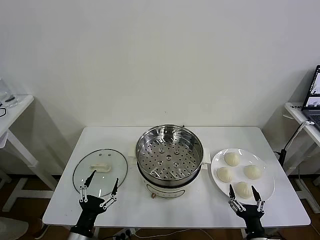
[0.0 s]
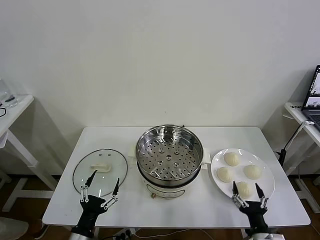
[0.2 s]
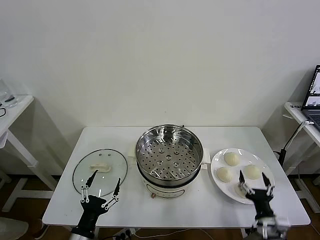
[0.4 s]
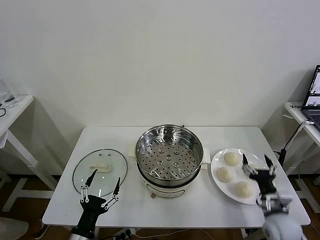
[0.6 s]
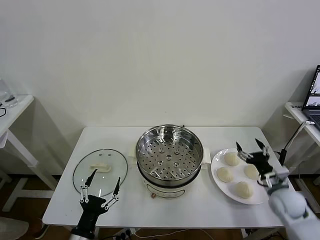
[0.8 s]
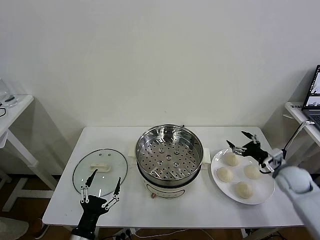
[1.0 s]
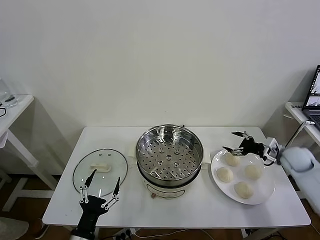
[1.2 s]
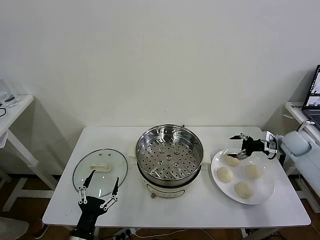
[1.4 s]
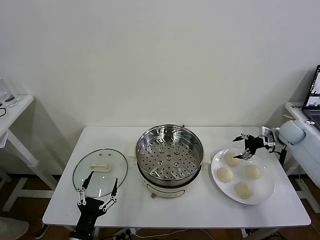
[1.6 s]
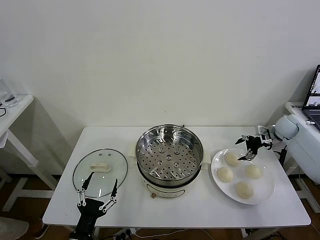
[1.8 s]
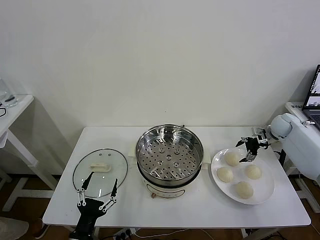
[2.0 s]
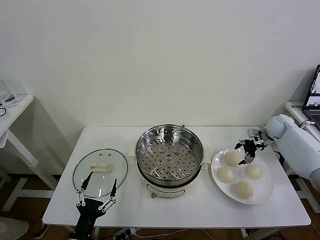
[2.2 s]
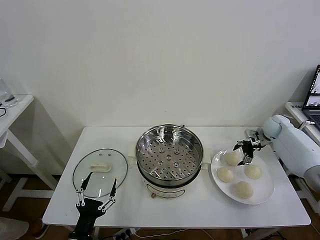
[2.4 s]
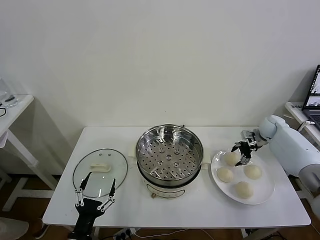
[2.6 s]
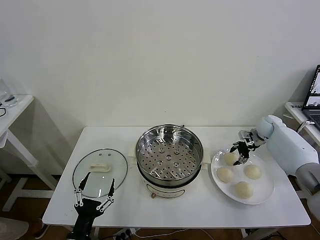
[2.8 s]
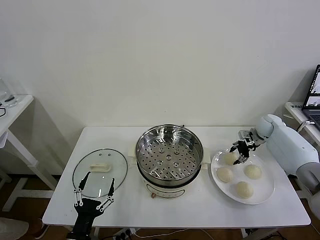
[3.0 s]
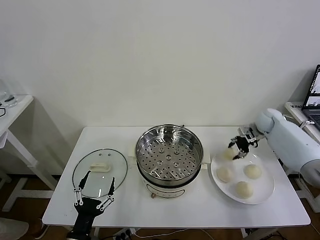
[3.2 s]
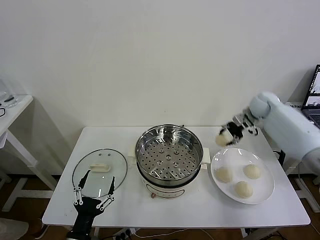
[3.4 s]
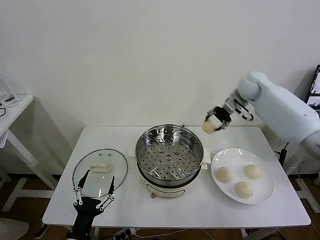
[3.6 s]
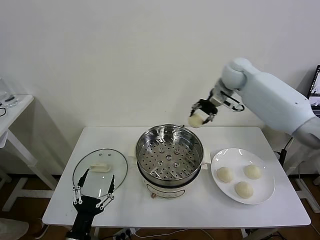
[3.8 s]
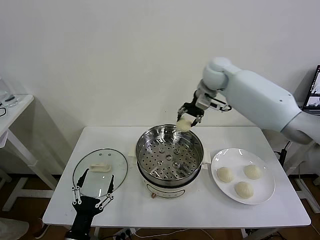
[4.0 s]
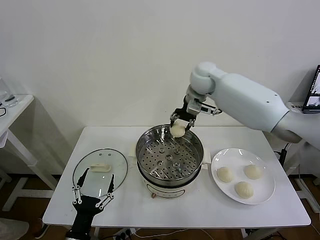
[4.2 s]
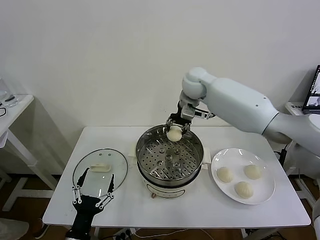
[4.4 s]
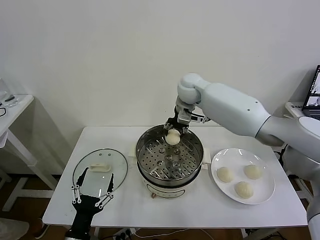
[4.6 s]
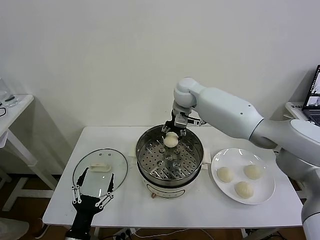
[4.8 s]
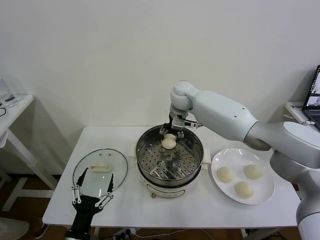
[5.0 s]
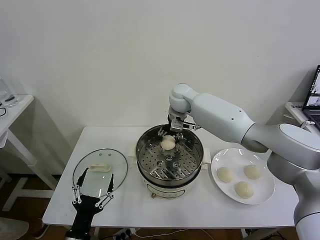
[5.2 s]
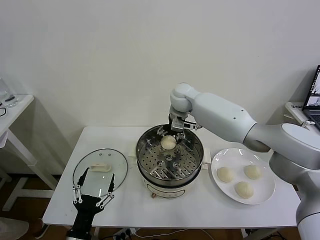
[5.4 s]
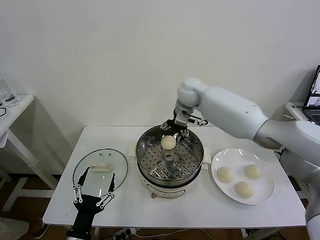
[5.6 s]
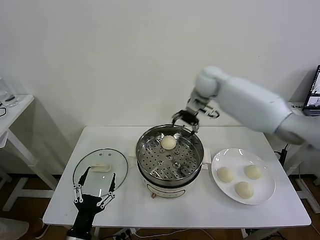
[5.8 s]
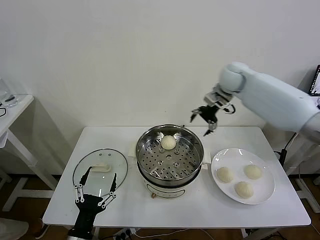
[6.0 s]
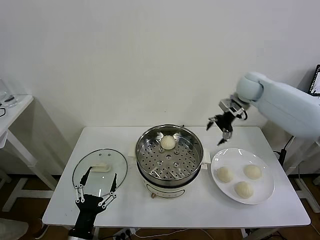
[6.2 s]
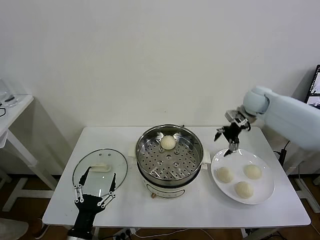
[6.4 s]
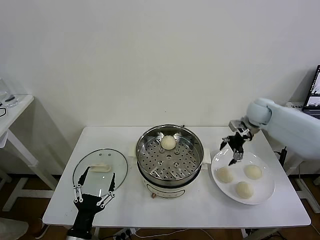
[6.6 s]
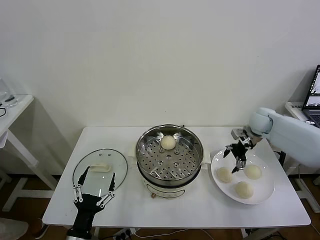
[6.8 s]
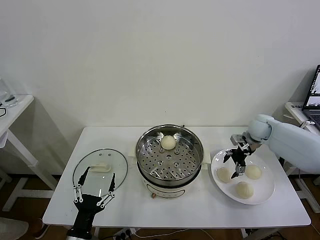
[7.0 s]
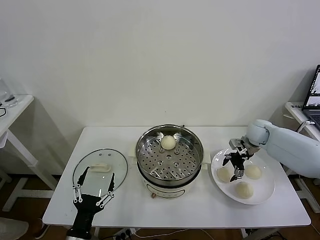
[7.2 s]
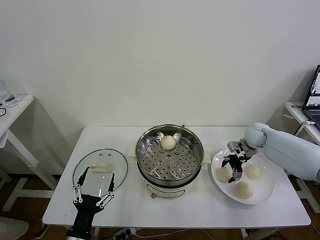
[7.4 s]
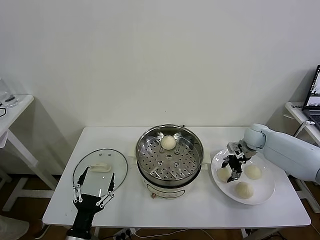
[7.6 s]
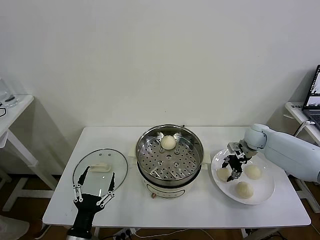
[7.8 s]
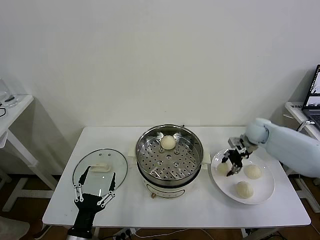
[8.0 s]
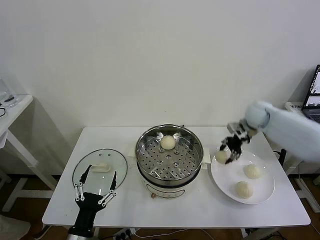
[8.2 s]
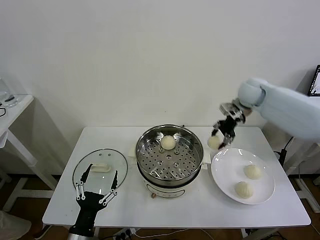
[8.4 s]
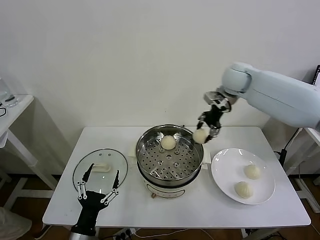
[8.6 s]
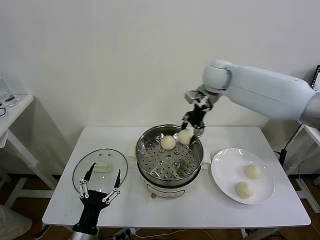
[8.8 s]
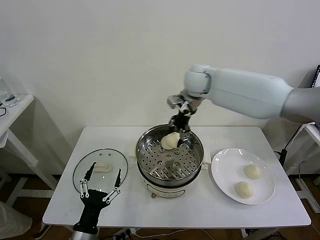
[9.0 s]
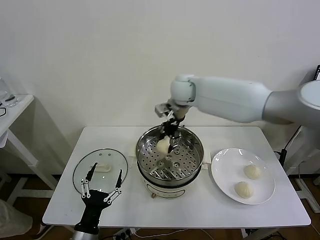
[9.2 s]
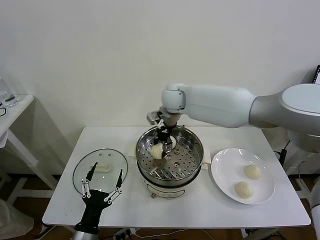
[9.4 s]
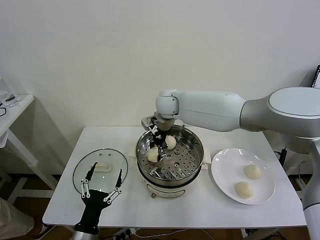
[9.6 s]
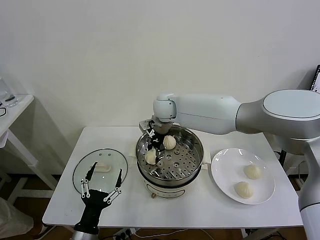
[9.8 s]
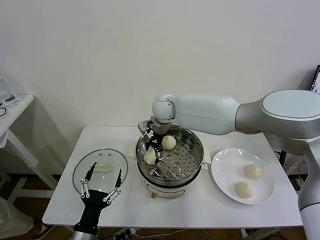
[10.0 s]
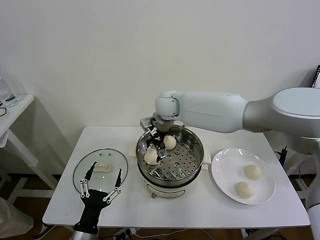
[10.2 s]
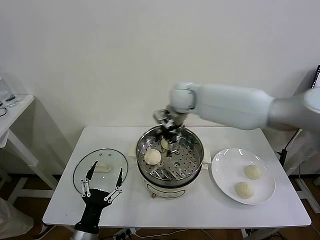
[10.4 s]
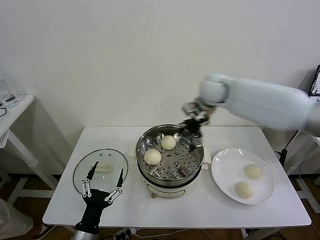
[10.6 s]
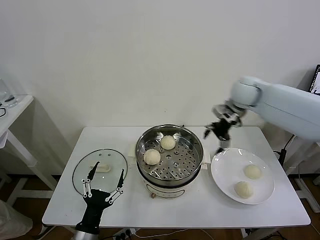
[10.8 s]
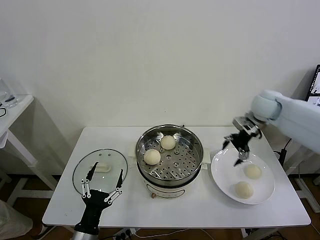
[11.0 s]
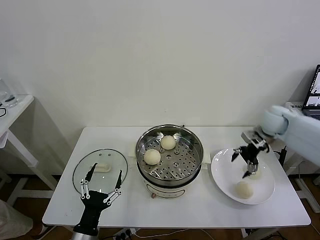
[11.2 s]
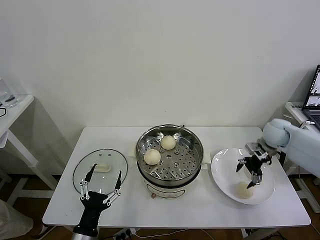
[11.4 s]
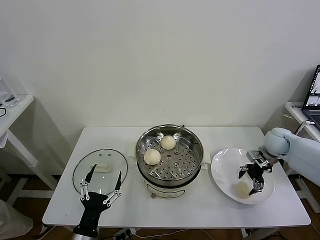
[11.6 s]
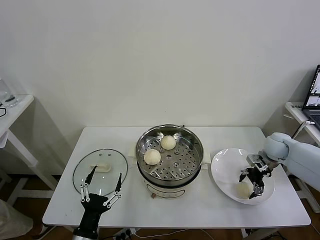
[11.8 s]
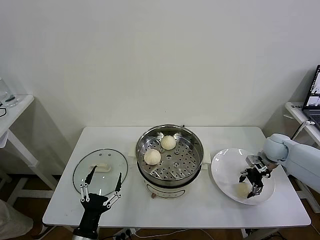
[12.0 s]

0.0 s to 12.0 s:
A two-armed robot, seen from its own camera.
Task of the whole recording: take steamed baozi put them in steamer then cover it.
Step, 0.0 to 2.8 s: Grasp the baozi in the plate with right gripper.
Step, 3.0 to 5.2 s: Place the baozi on the steamer with right gripper.
Step, 5.6 to 7.6 s: Grasp the baozi in the plate with right gripper.
Step, 7.8 to 10.0 s: Place the baozi on the steamer with right gripper.
Step, 10.2 to 12.0 s: Grasp the baozi in the plate with right gripper.
1.6 to 3.0 s: The right gripper is displaced forward and to the left by some 5 cm, and closes its fingers.
3.0 to 4.4 s: The right gripper is displaced to the left and upward by approximately 40 cm.
4.4 to 6.0 s: The right gripper travels to the right by roughly 15 cm, and opens up.
6.0 to 7.6 s: The right gripper heads downward and to the right, covering roughly 25 cm, and closes up.
7.6 to 9.0 s: The right gripper shifts roughly 35 cm to the left and upward.
9.0 to 10.4 s: The right gripper goes to the left and returns, roughly 10 cm each way, and opens its fingers.
10.4 to 12.0 s: The right gripper goes about 40 cm to the right and downward, and closes.

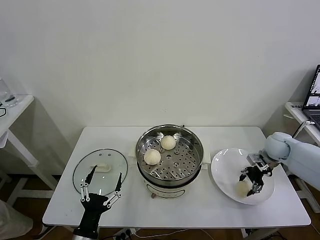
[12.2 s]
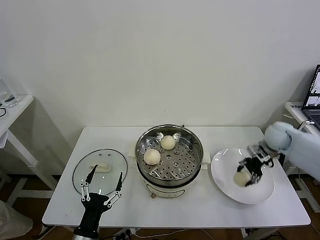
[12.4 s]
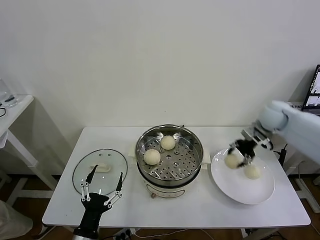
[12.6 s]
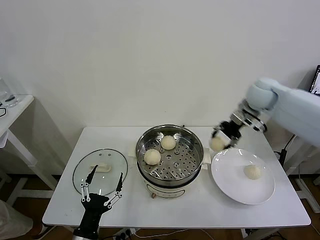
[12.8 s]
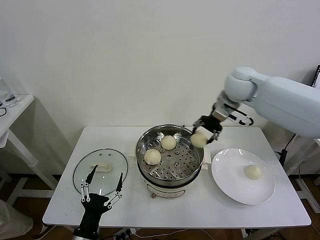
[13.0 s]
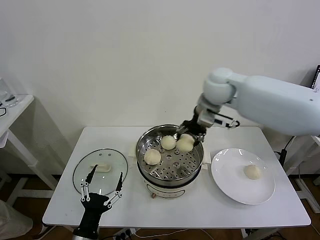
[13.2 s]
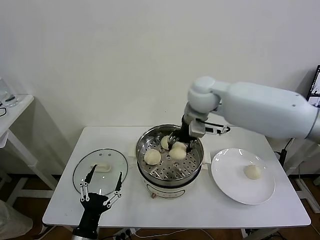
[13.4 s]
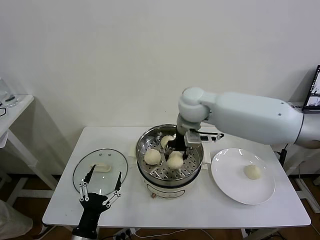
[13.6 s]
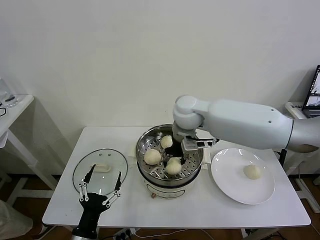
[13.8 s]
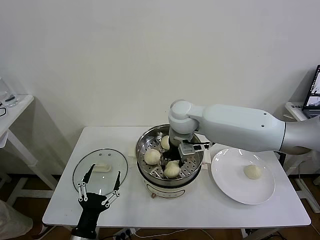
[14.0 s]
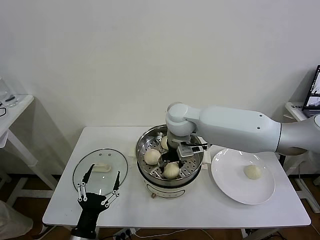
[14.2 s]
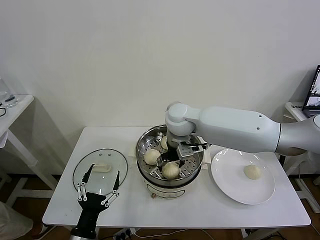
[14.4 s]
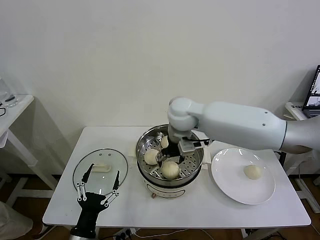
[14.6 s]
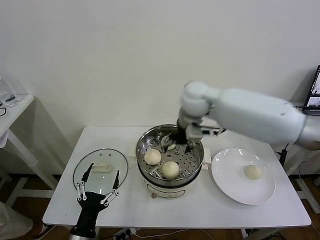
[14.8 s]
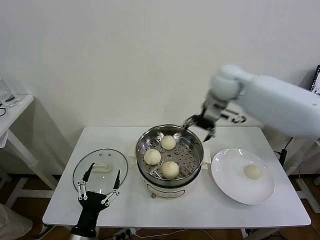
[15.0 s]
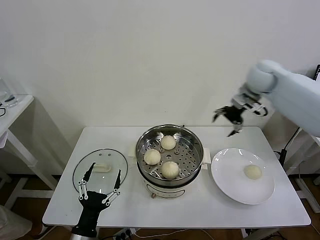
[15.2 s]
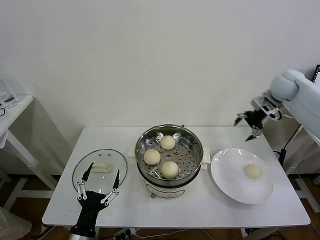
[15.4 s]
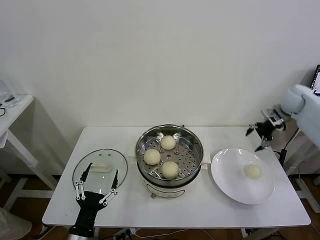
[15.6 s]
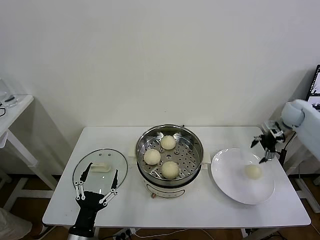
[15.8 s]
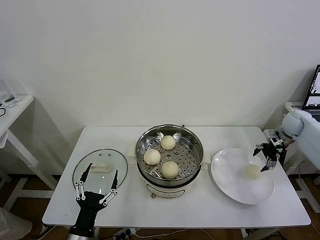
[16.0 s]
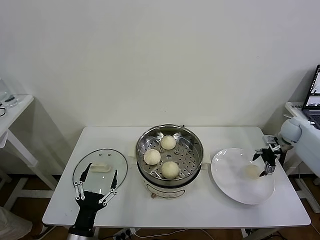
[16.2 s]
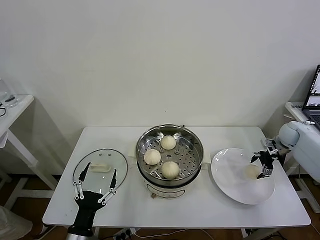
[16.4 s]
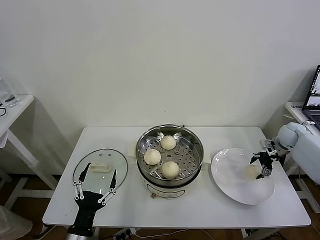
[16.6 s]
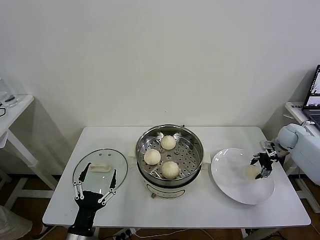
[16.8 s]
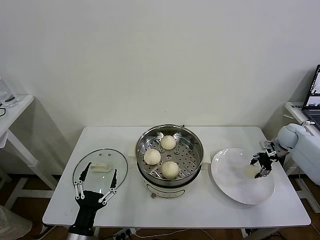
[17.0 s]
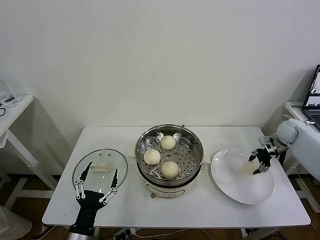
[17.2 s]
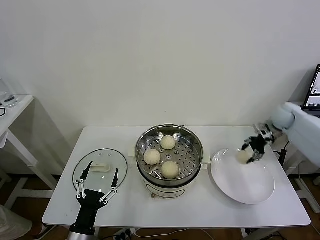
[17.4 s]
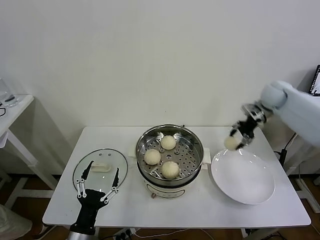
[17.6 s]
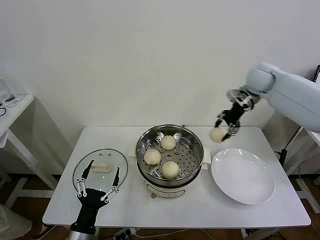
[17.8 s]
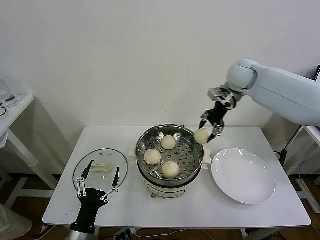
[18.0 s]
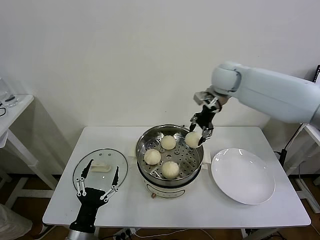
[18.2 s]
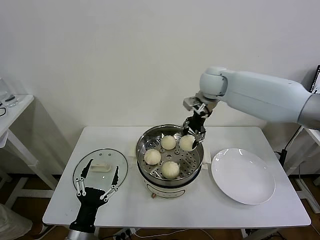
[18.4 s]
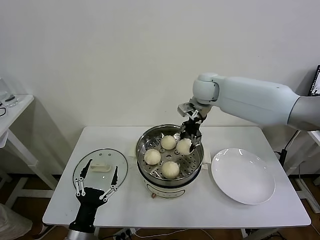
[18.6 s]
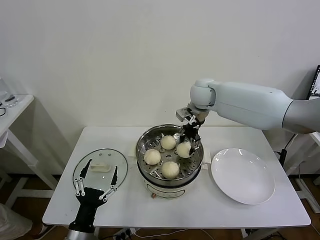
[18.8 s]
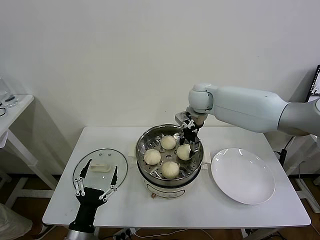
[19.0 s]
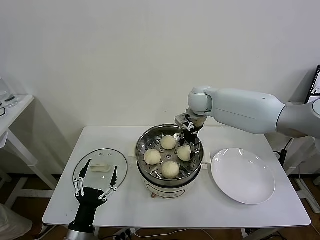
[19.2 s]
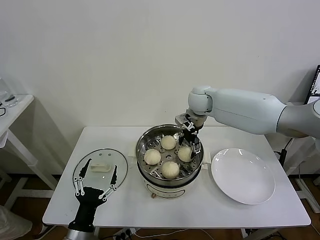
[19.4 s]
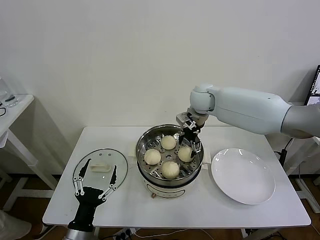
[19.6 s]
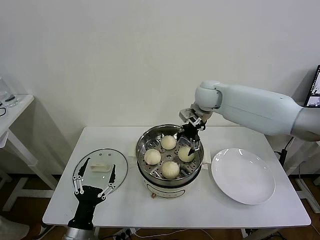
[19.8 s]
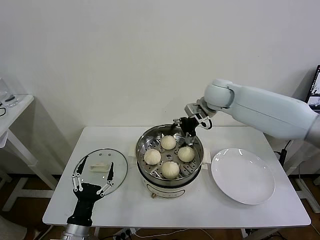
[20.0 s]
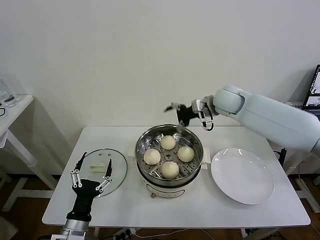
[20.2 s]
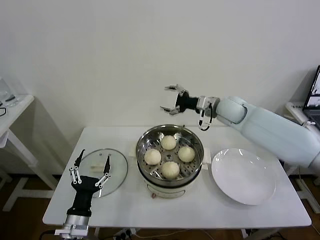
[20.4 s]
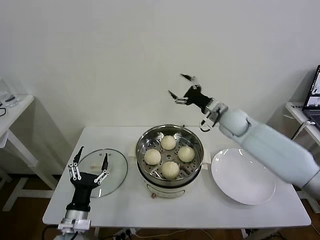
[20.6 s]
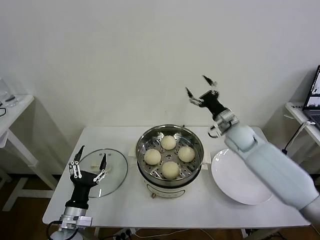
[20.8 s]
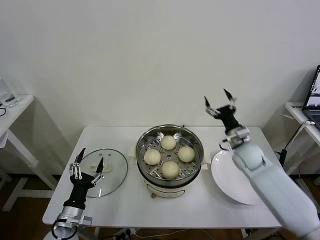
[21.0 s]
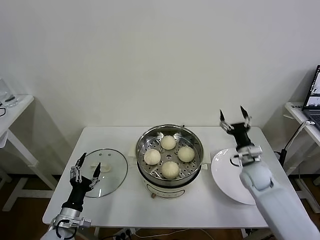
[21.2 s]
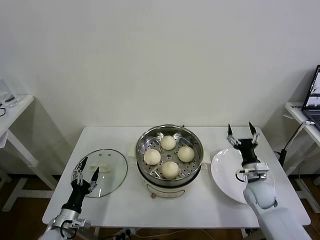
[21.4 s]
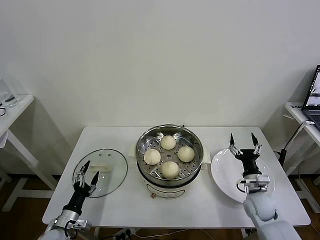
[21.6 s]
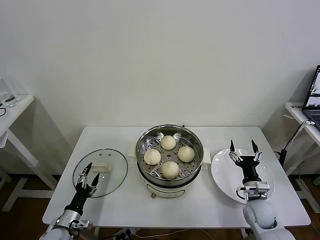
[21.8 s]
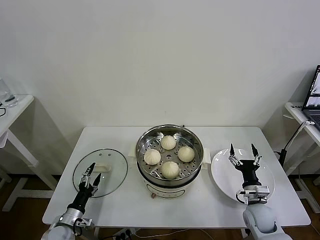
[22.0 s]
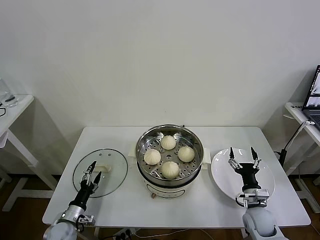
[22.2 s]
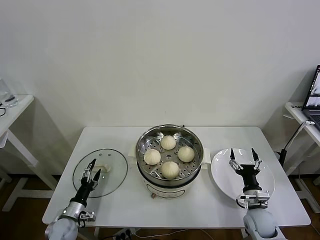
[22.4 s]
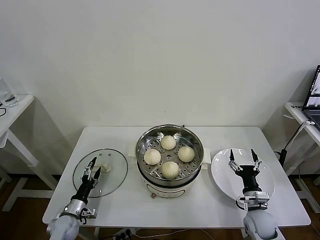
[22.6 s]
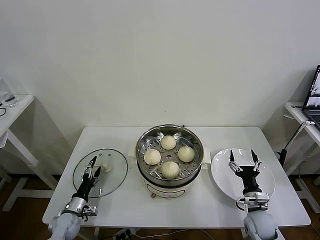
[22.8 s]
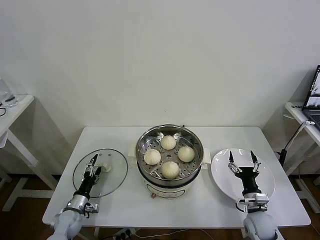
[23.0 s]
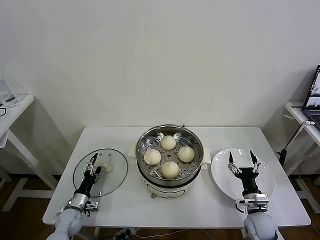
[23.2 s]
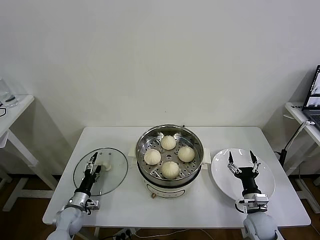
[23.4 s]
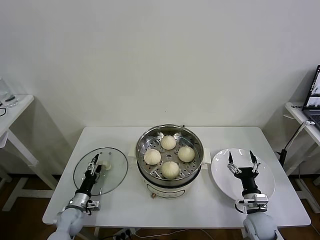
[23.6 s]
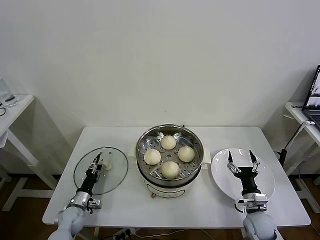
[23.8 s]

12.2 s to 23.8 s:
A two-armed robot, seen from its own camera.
Task of the whole recording: take steamed baozi put them in steamer then cover it.
Step, 12.2 to 14.4 s: Place the baozi on the steamer with right gripper.
Step, 14.6 to 16.8 s: Grasp the baozi in the plate with right gripper.
Step, 17.2 to 19.4 s: Place the baozi on the steamer with right gripper.
12.2 to 13.6 s: The right gripper shifts some 40 cm to the left and upward.
13.6 to 15.0 s: The right gripper travels to the right, forward and upward by some 15 cm, and opens its fingers.
15.0 to 16.6 s: The right gripper travels to the right and downward by roughly 35 cm.
16.6 to 18.0 s: The right gripper is displaced to the left and upward by about 35 cm, and closes its fingers.
18.0 to 19.4 s: The right gripper moves to the left and downward, roughly 15 cm, and opens up.
19.4 to 21.0 s: The right gripper travels to the right, downward and backward by about 25 cm, while the left gripper is displaced forward and to the left by roughly 10 cm.
21.0 to 22.4 s: The left gripper is displaced downward, to the left and forward by about 15 cm; the right gripper moves backward and downward, approximately 20 cm.
22.4 to 23.8 s: The left gripper ends up some 5 cm from where it was, and closes.
